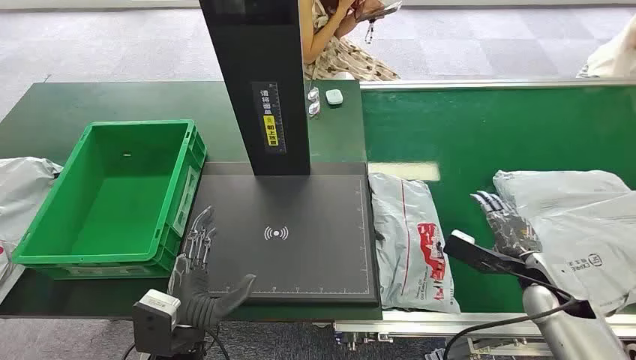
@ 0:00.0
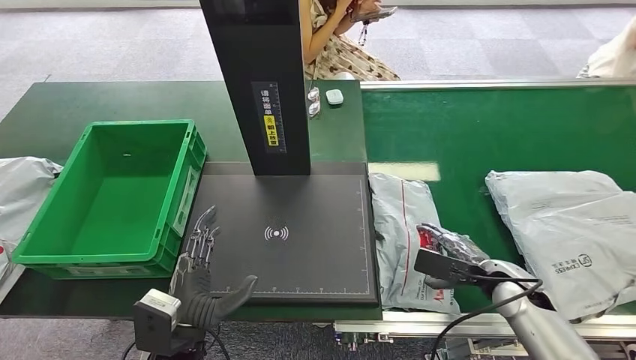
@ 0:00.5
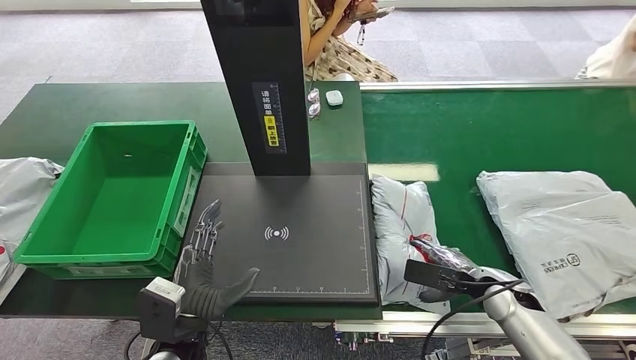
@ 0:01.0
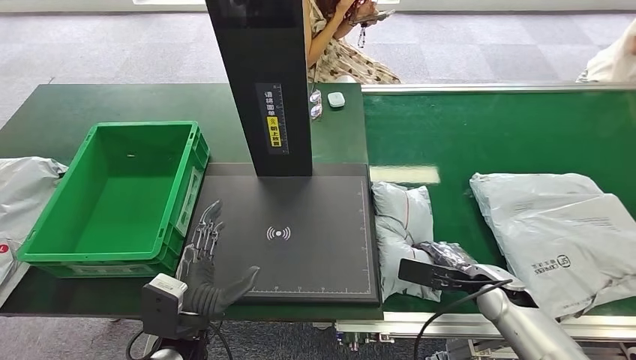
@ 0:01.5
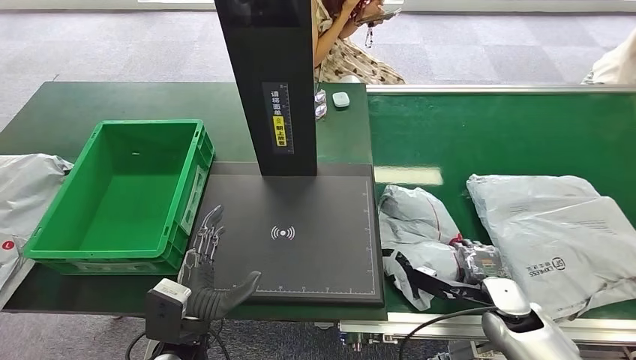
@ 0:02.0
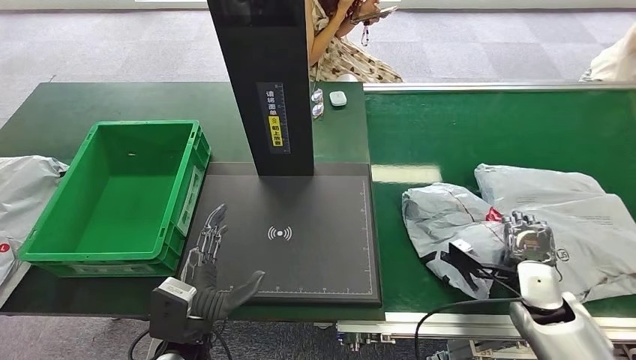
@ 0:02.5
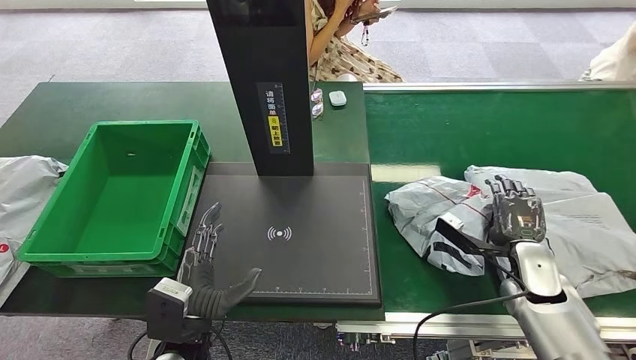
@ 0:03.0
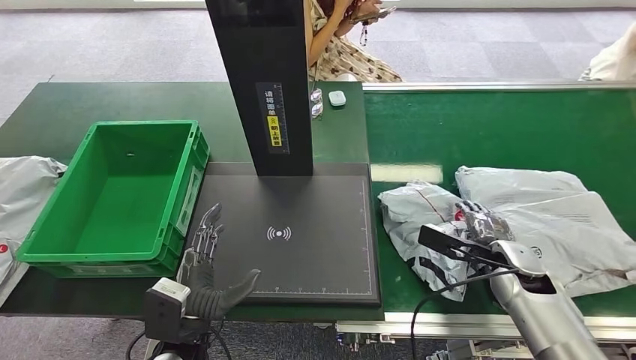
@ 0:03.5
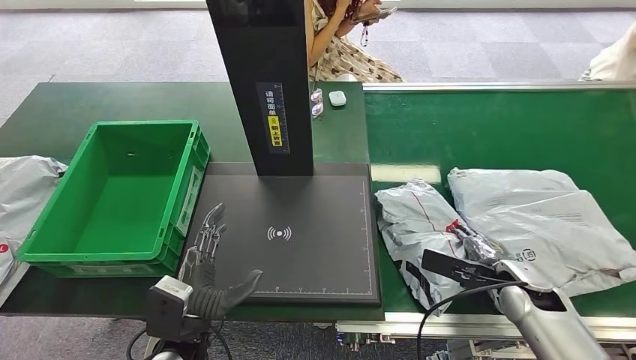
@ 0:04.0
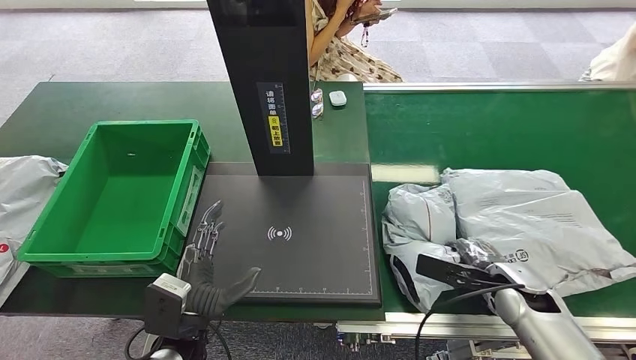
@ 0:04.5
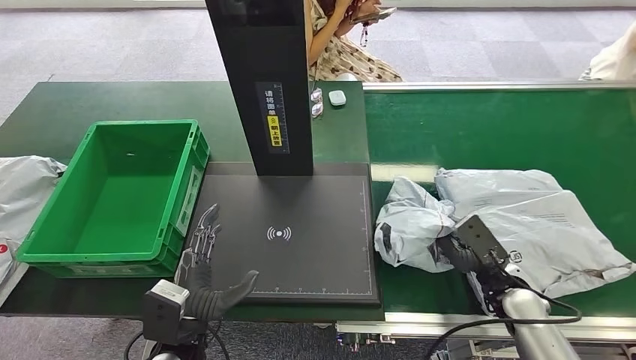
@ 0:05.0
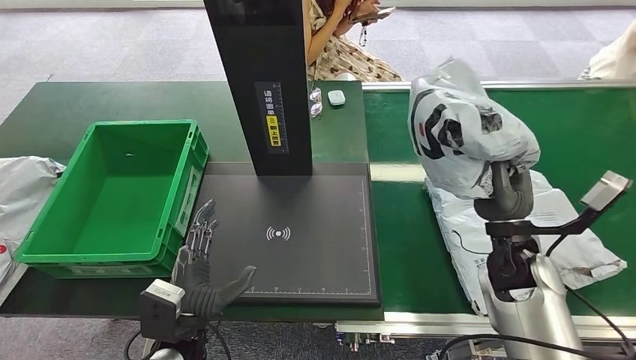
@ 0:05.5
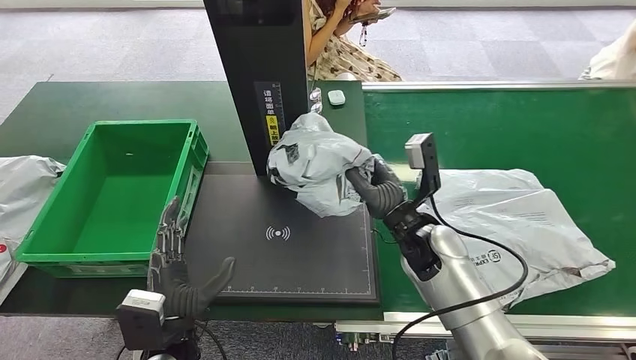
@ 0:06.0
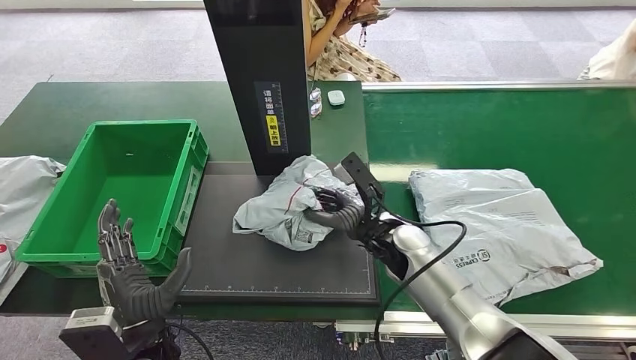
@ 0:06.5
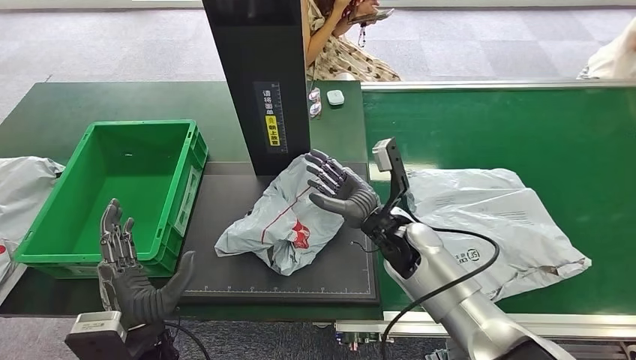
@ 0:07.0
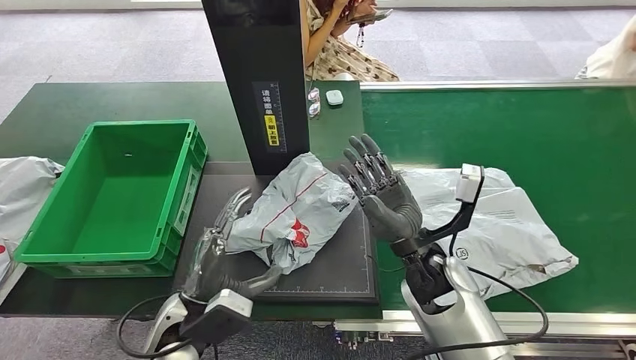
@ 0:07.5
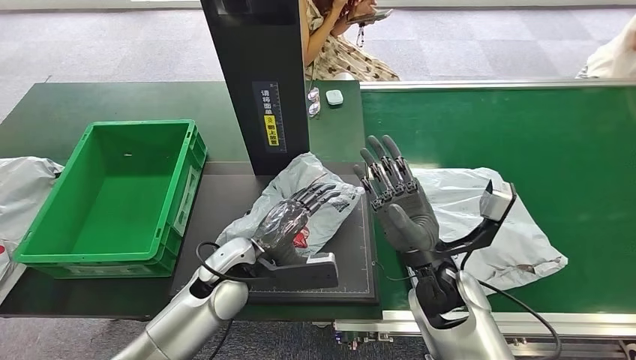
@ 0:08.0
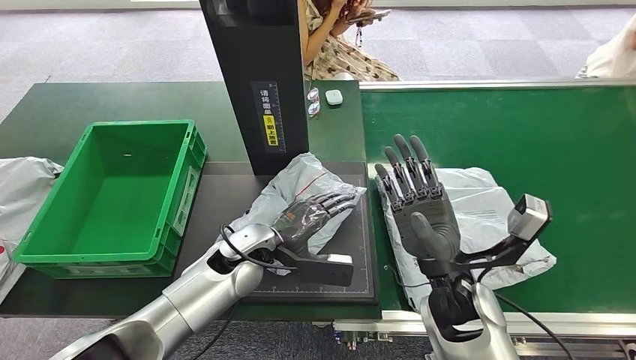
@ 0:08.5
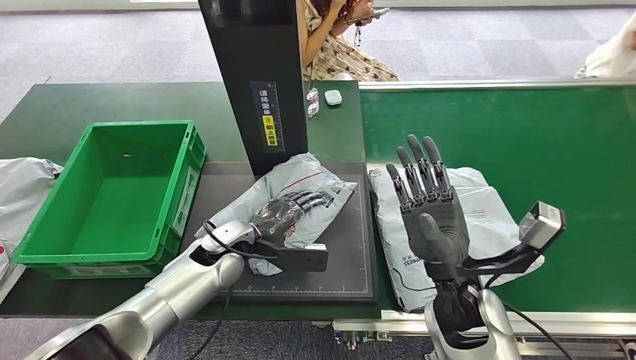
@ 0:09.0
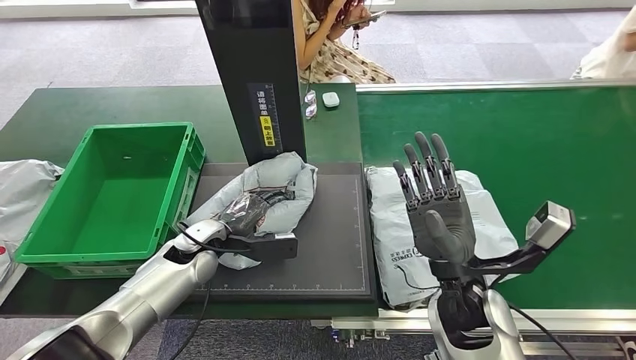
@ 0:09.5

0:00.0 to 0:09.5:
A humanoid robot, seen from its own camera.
Step, 0:00.0 to 0:05.5: Pick up the package from the conveyor belt.
Step, 0:06.0 to 0:08.0: Place the package onto the inbound machine.

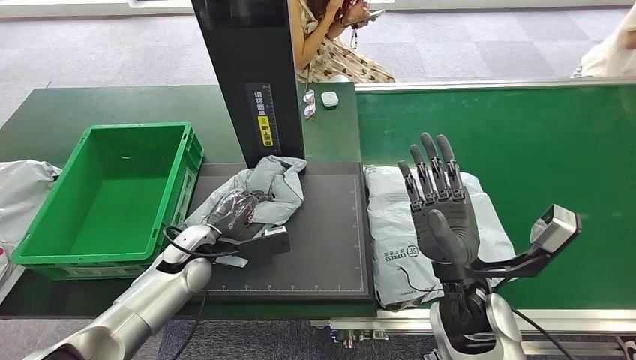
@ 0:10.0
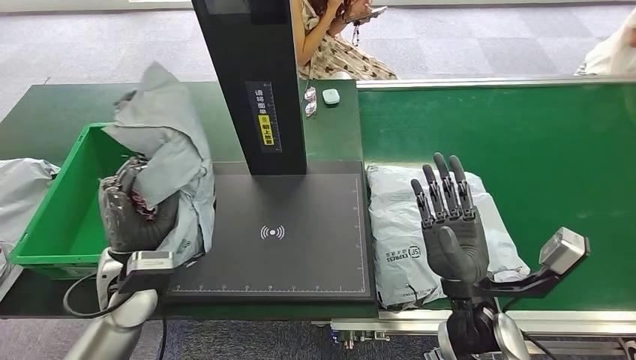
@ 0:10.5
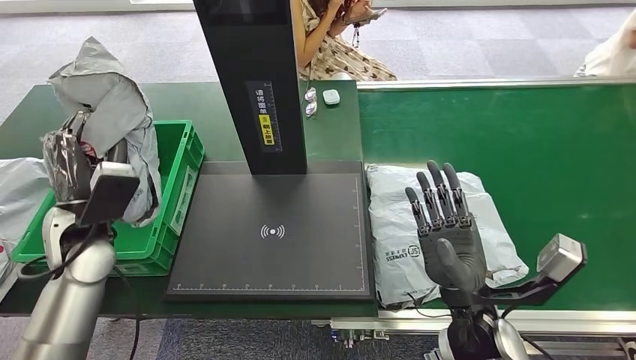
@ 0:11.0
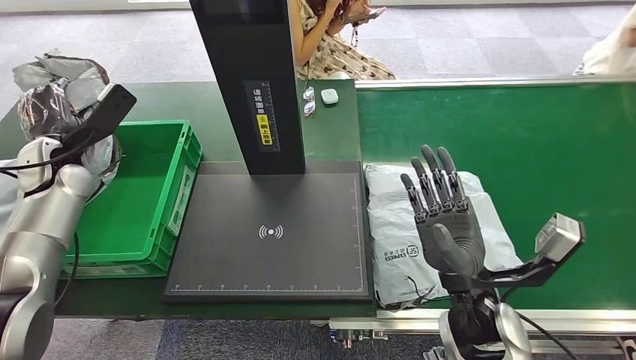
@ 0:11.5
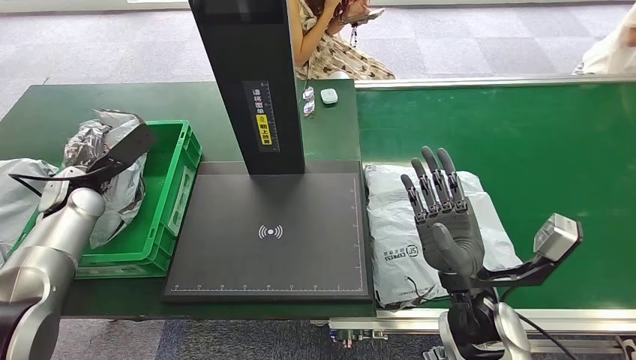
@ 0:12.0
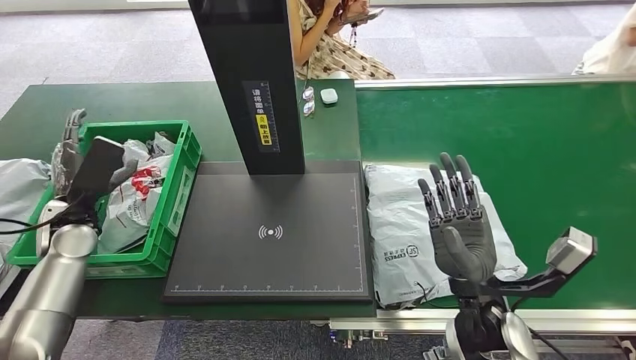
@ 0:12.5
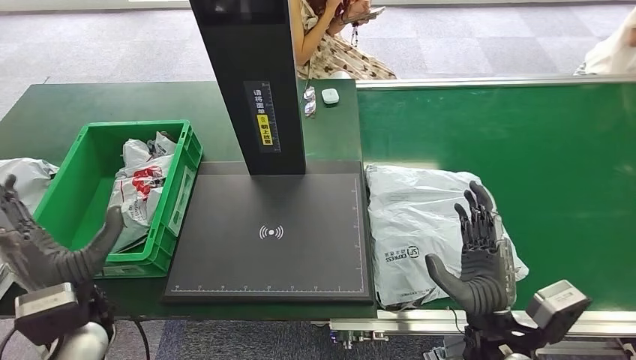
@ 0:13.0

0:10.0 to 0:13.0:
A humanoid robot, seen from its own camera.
Step, 0:11.0 to 0:13.0: Place the package into the parcel locker.
